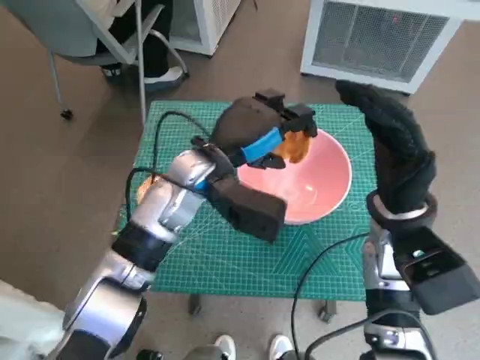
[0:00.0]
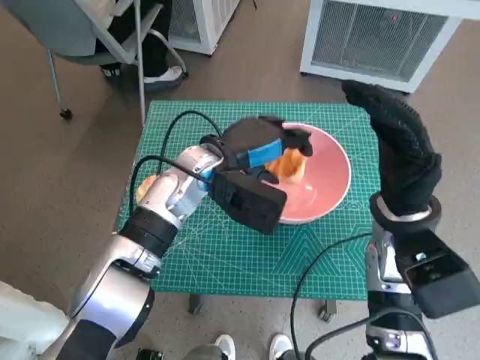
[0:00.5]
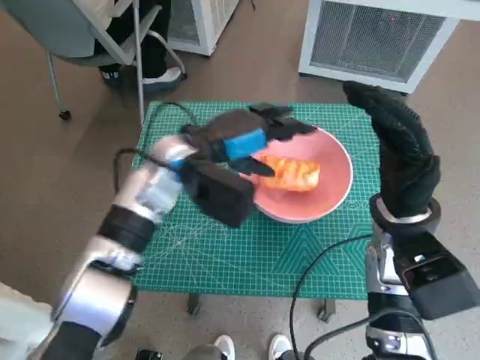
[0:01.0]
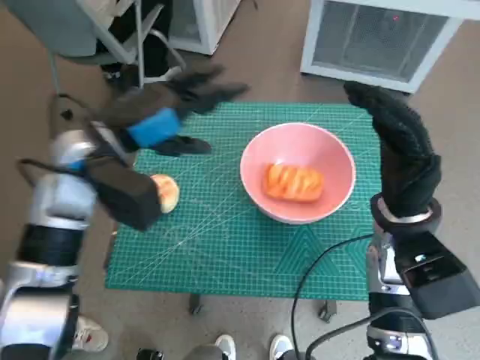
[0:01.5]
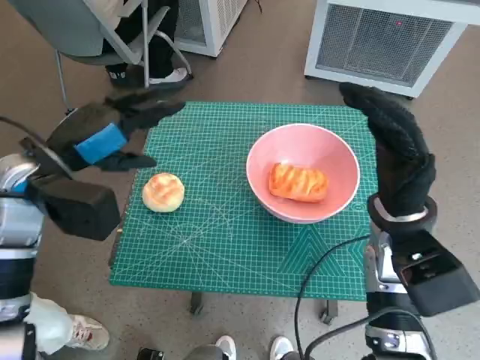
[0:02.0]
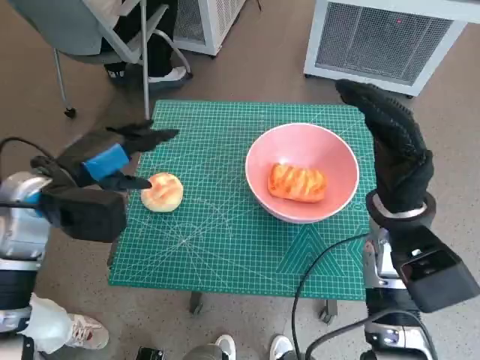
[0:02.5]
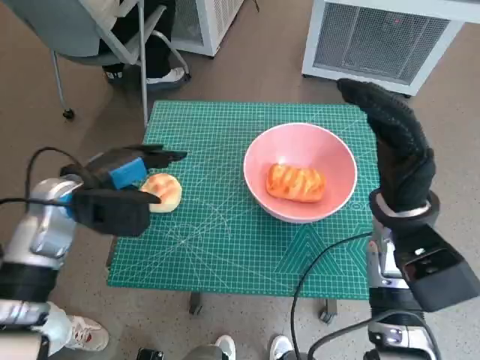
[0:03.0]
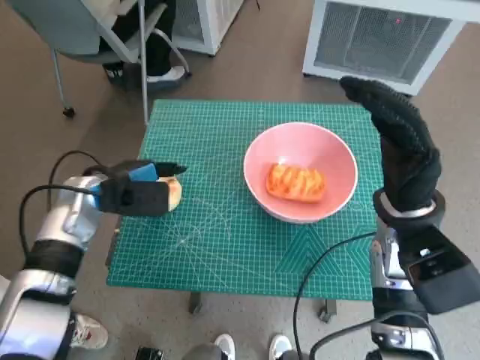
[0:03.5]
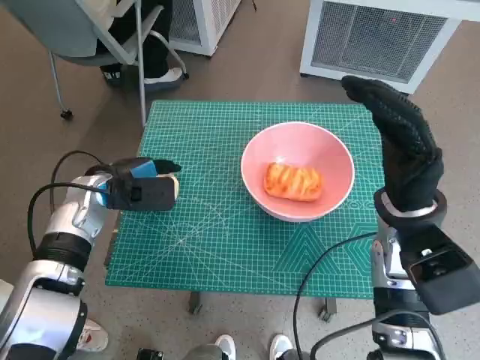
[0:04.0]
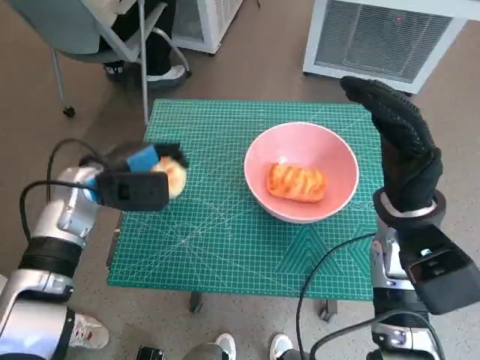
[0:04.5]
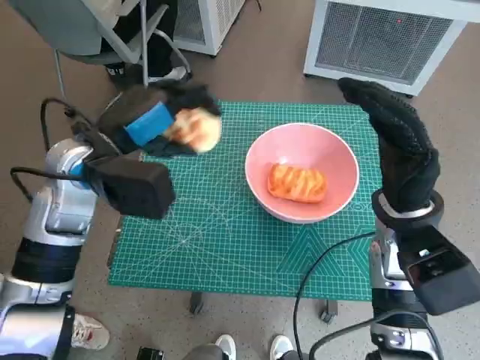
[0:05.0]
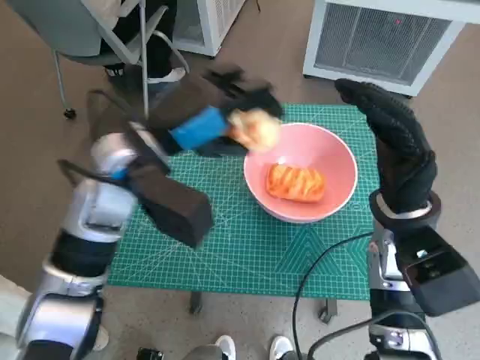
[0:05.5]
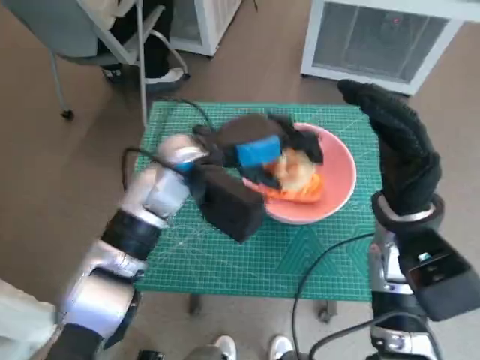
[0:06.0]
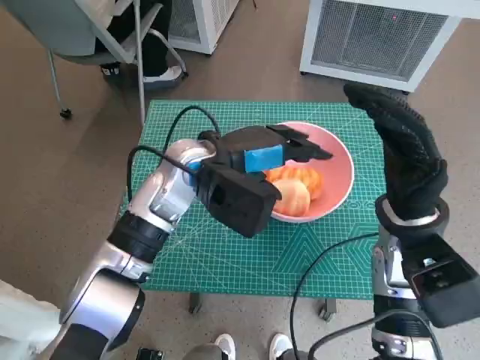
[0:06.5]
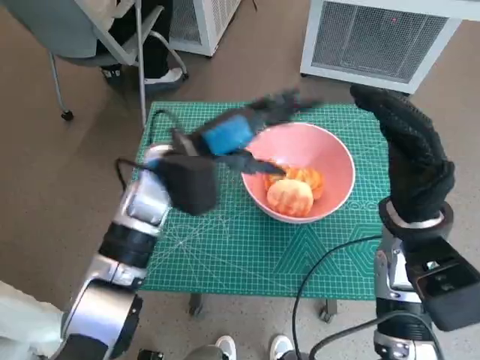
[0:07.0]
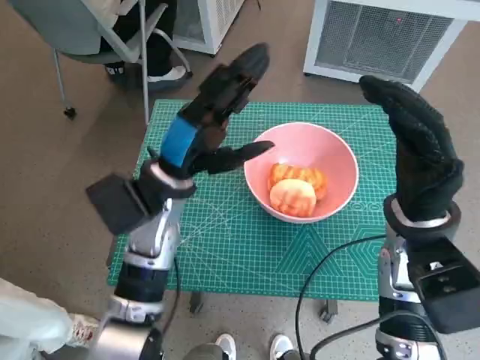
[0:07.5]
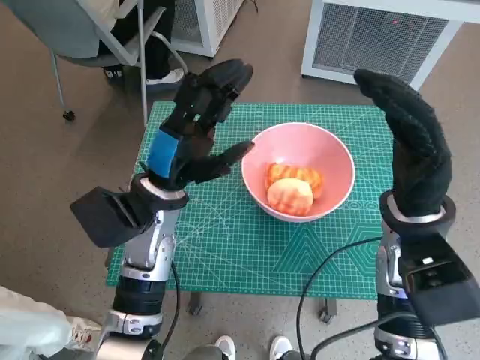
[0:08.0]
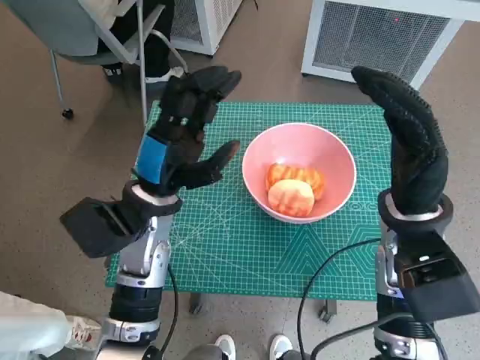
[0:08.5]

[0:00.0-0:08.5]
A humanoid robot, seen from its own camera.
Task of the whole recording: Push the bowl to the center of the table and put the bread into the bowl.
Step, 0:01.0 to 0:04.0: Grasp the round bread with left hand.
Step, 0:04.5 to 0:06.5: Place the round bread in pink bowl with left hand.
0:00.0 to 0:02.0: The left hand shifts approximately 15 cm to the left.
0:02.0 to 0:04.0: The left hand goes roughly 10 cm downward.
0:04.0 to 0:06.5: The left hand shifts about 20 cm to the right and upward.
0:06.5 to 0:08.5: The left hand travels to the left and backward by some 10 cm.
